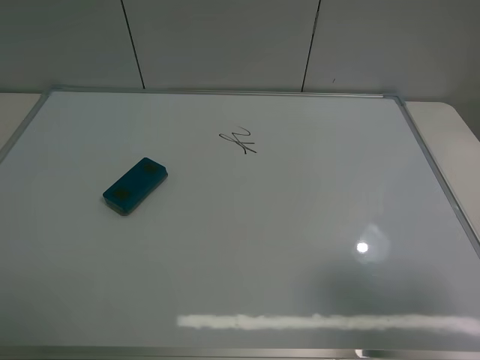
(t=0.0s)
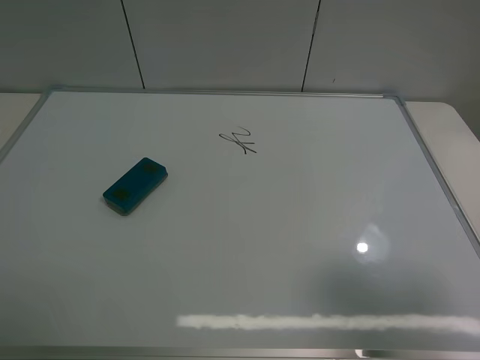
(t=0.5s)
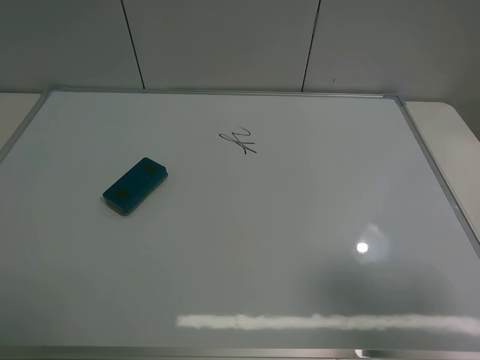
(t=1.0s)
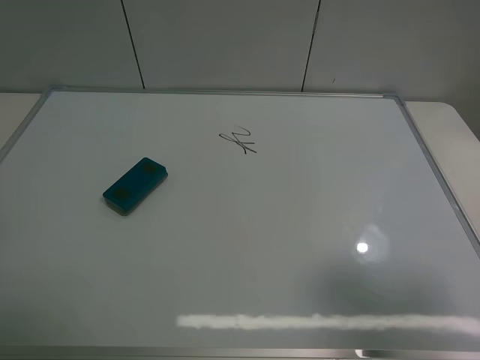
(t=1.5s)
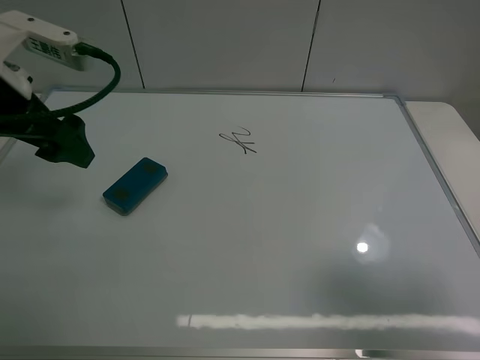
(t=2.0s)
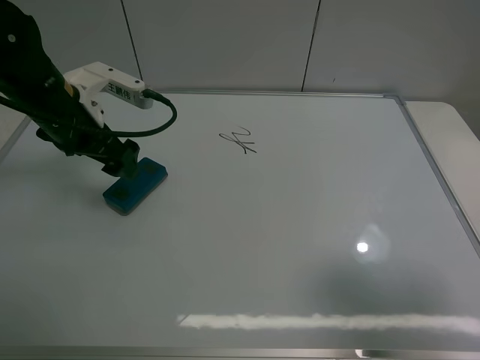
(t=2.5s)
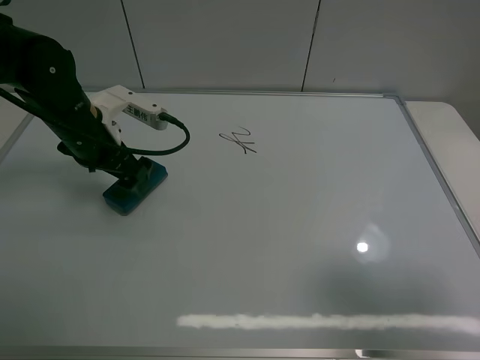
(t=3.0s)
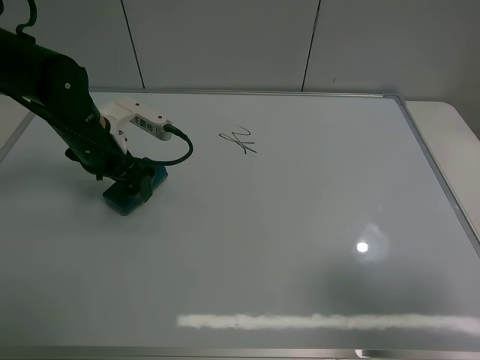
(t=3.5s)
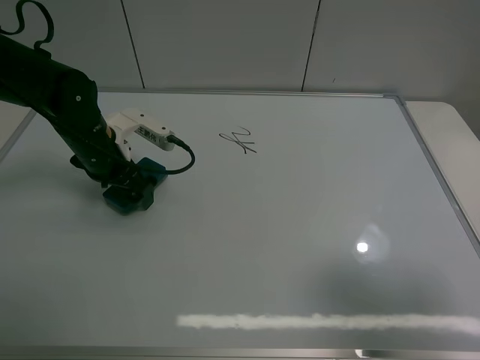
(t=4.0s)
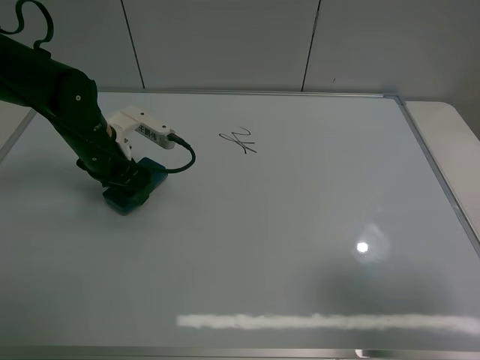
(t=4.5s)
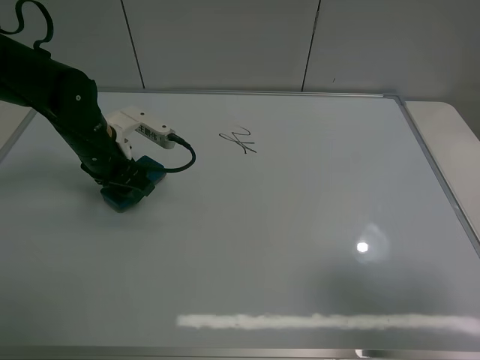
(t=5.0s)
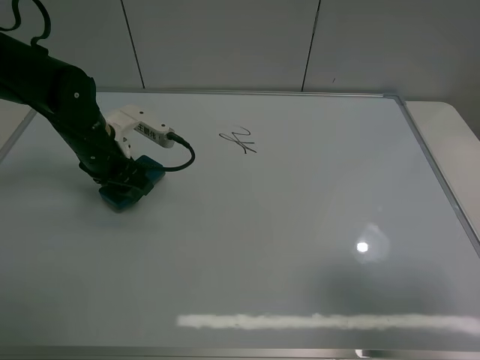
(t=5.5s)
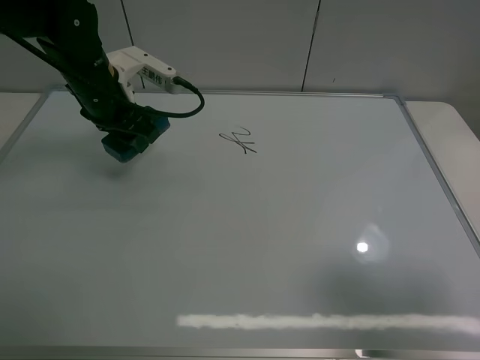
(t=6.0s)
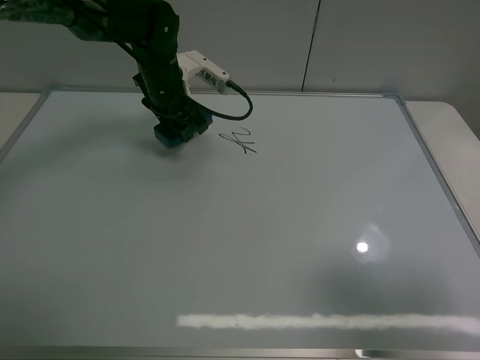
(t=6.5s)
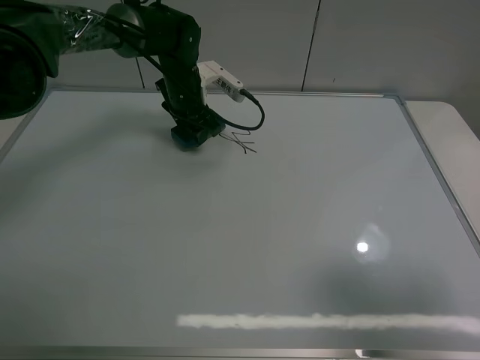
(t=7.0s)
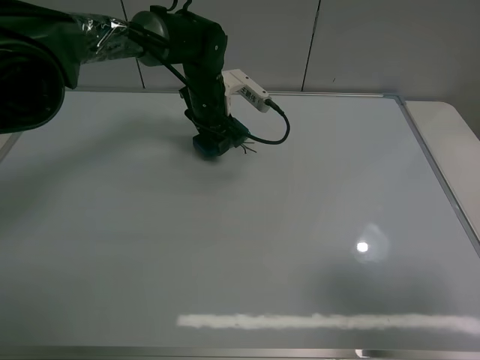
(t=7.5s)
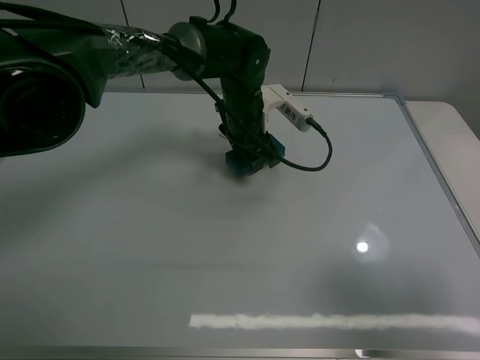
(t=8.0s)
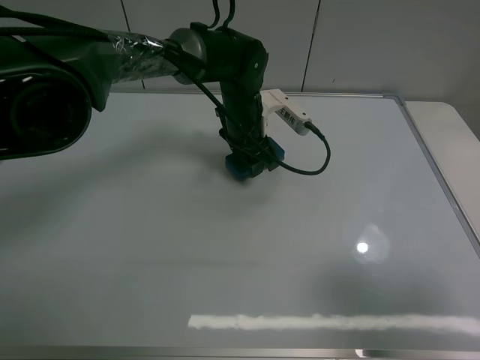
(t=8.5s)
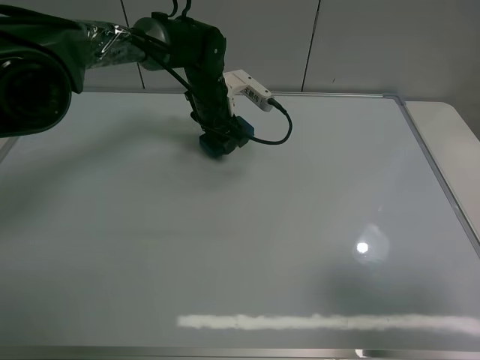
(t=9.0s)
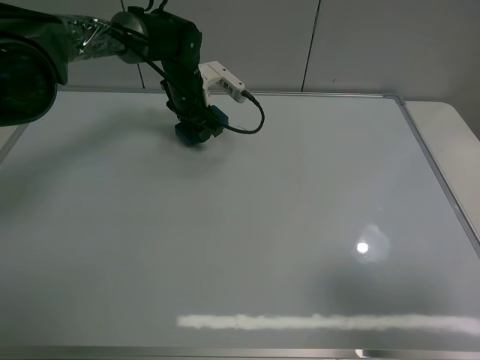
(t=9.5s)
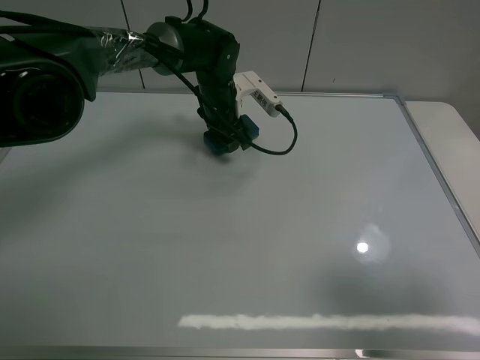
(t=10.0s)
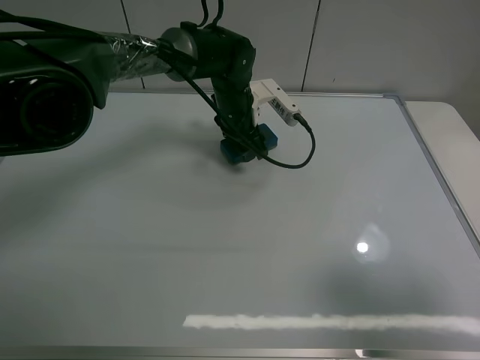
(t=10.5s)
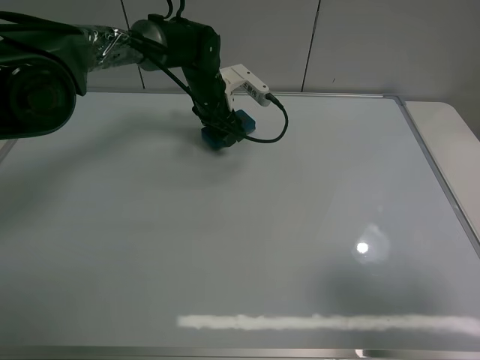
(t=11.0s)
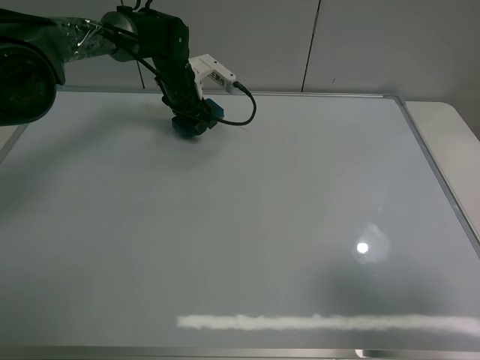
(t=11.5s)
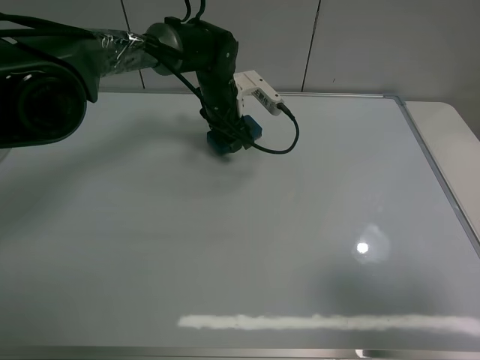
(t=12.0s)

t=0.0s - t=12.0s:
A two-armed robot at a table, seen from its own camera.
Task of the whole recording: use the left claw to pick up the whiteboard eraser, wipe the notes on the whiteboard clean, and then put them back in place.
Step, t=0.0s - t=4.5s: Grasp the eraser with the left gripper.
t=0.0s - t=2.0s: The left gripper moves forward, about 25 cm.
t=2.0s - t=4.0s: The left gripper heads downward and forward, covering roughly 15 cm.
t=4.0s - t=6.0s: The left gripper heads upward, covering approximately 5 cm, and closes.
t=6.0s - t=8.0s: The left gripper heads to the right, covering about 20 cm.
t=10.0s - t=12.0s: The left gripper moves some 10 cm to the left and comes back.

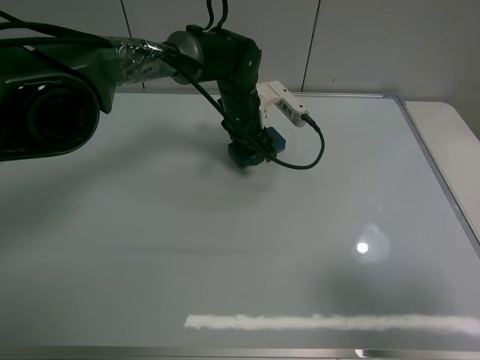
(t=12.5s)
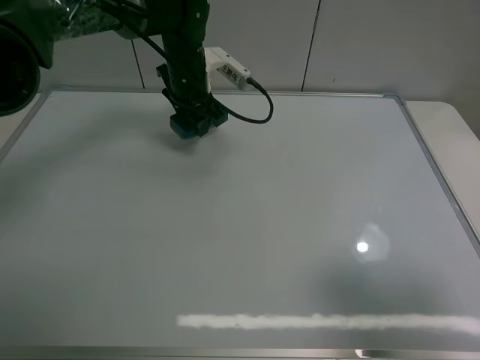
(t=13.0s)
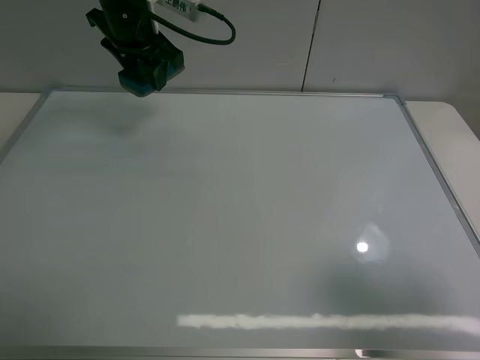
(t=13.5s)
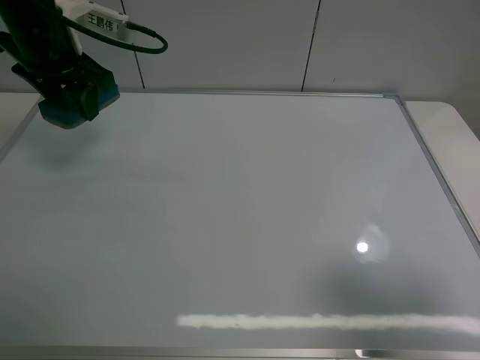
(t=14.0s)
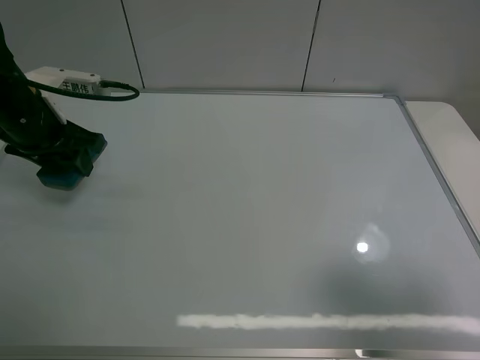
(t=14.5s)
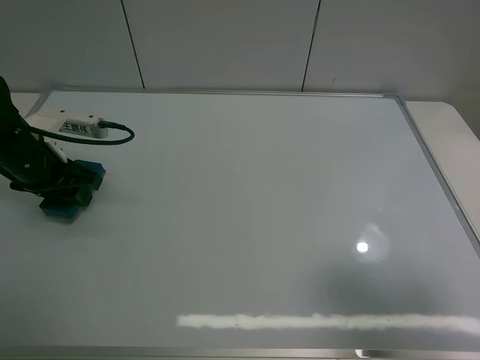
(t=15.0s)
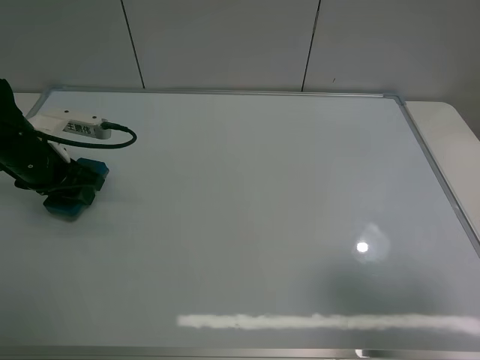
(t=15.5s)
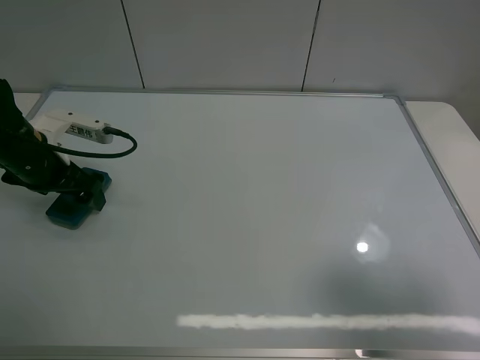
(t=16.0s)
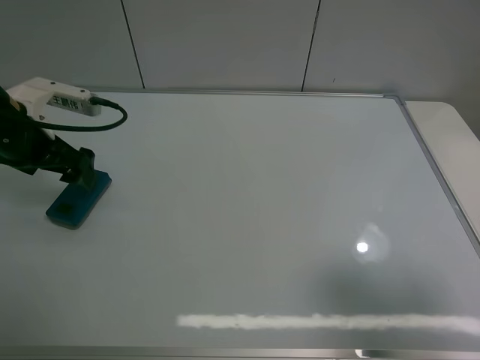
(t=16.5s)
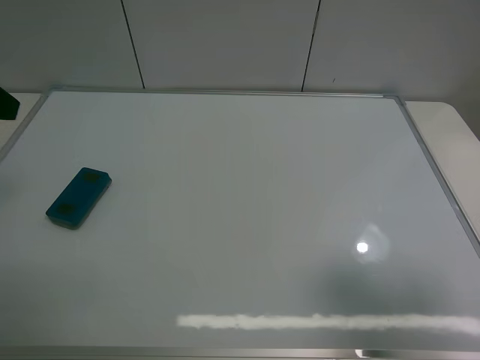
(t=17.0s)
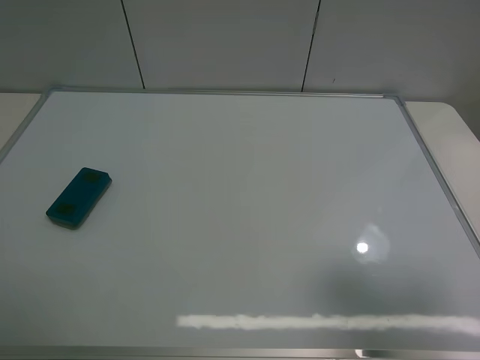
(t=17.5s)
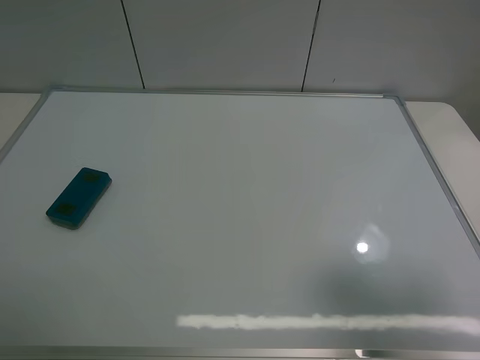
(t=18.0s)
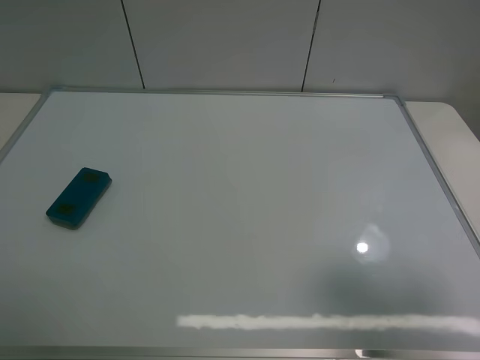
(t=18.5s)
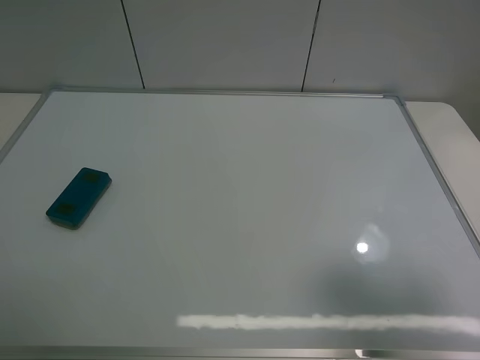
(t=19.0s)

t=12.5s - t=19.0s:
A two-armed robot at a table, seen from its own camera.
Task of the whole recording: use the left claw to pick up the whiteboard eraser, wipe the notes on the whiteboard clean, and then put them back in place.
Step, t=13.0s - t=15.5s: Place the eraser with the left gripper.
t=12.5s - t=14.5s: The left gripper travels to the left and backward by approximately 30 cm.
t=14.5s - t=17.0s: The left gripper shifts some 20 cm upward and backward, and opens up.
